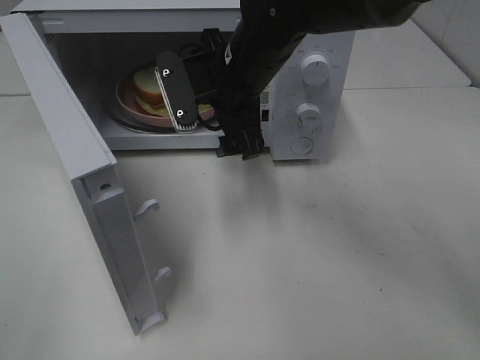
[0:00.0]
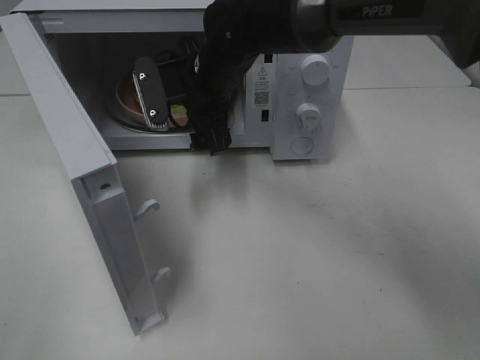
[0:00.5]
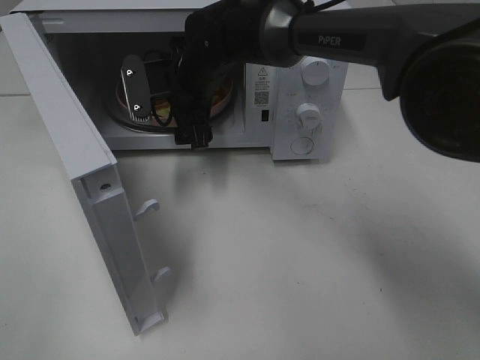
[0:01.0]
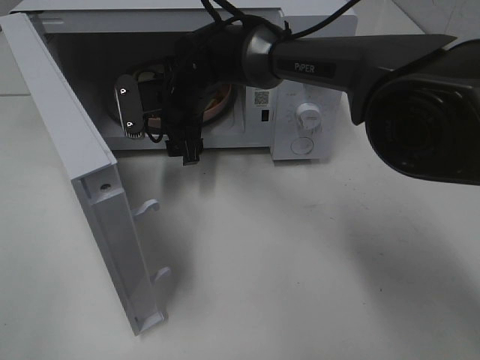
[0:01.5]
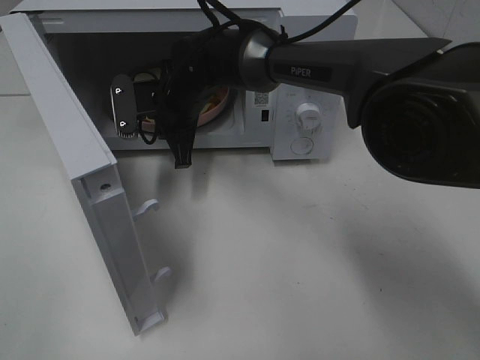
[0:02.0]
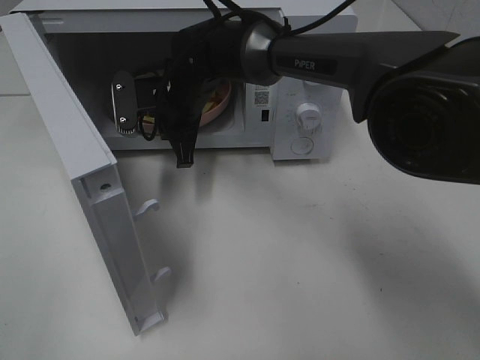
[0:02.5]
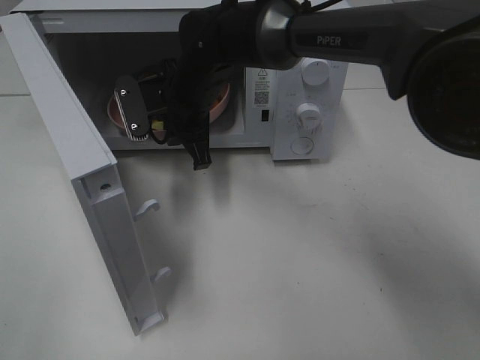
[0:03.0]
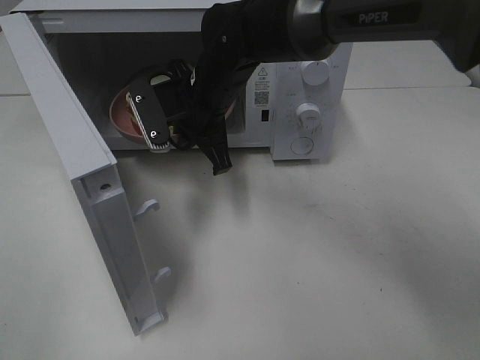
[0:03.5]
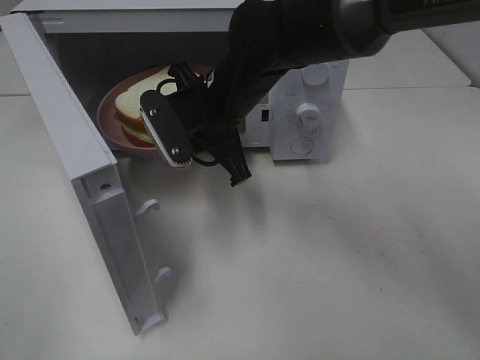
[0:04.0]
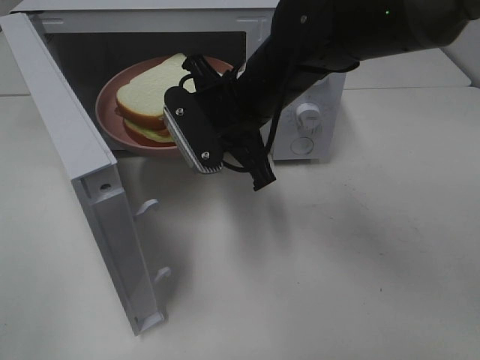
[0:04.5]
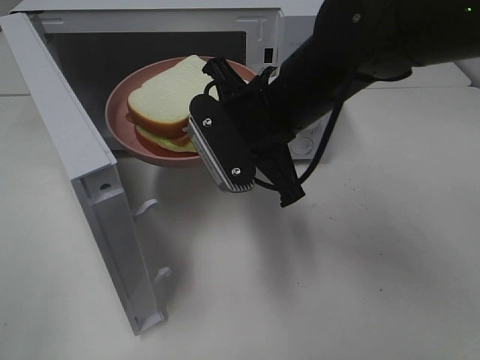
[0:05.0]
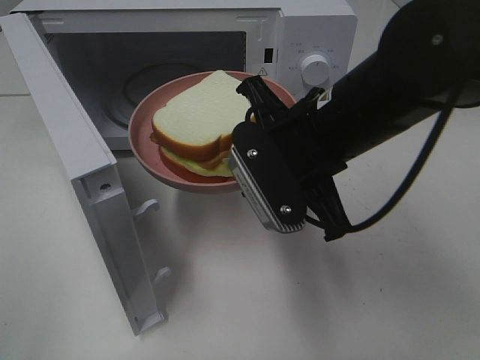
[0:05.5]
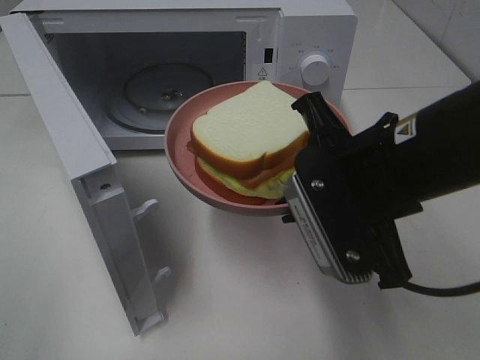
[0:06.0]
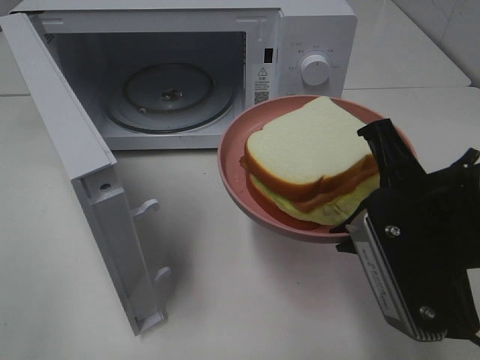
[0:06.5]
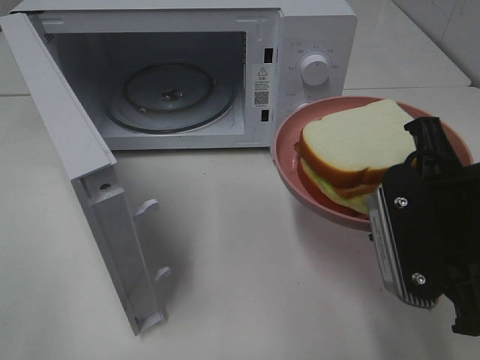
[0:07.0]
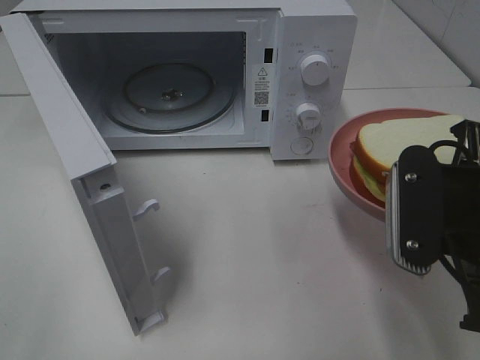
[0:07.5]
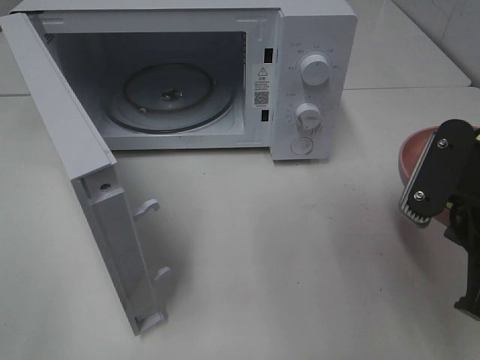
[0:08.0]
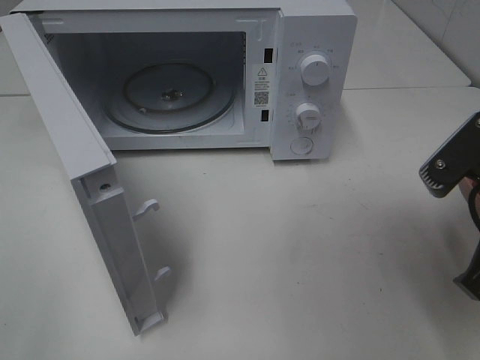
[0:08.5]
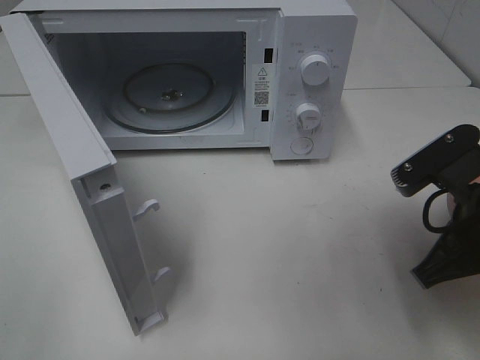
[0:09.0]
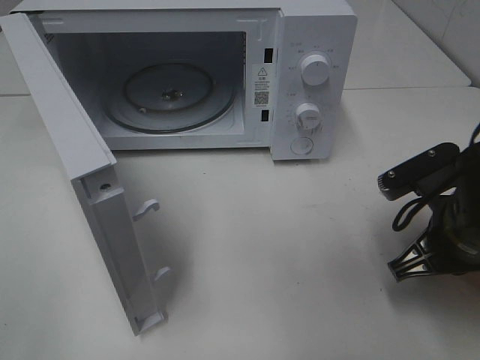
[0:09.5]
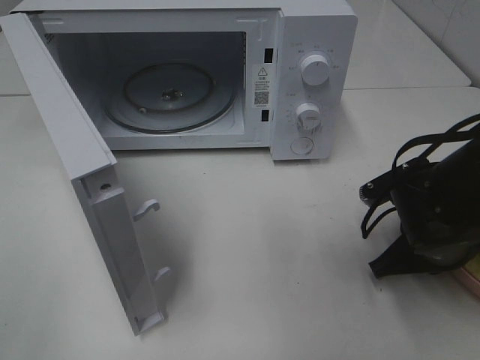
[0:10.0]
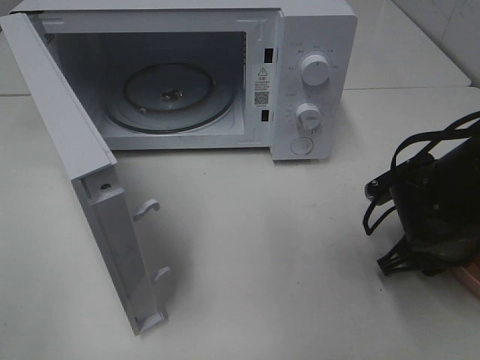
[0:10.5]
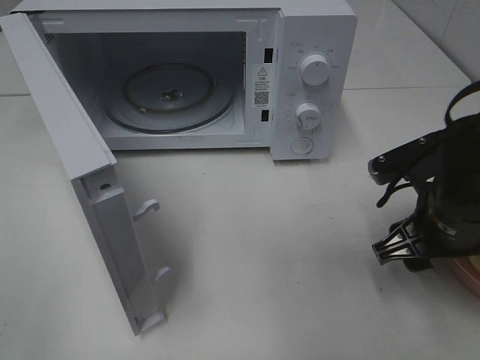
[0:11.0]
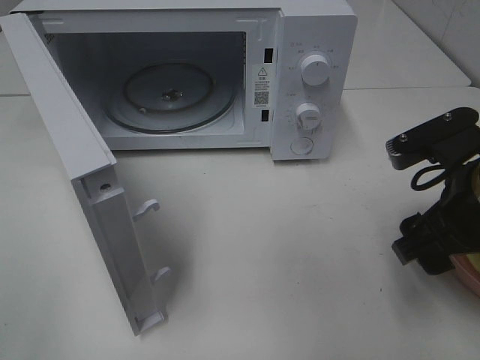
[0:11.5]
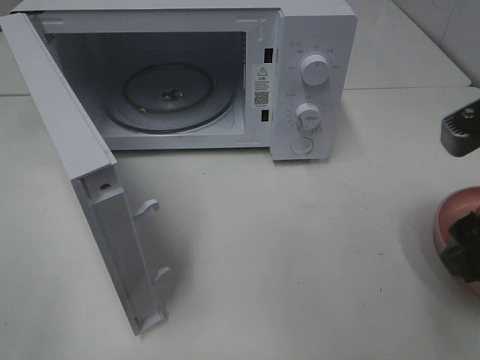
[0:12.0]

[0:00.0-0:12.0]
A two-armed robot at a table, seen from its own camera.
Task of the whole recording: Heat Sandwich.
Step, 0:00.0 to 0:02.0: Right hand: grab the plate with the sandwich.
Step, 0:02.5 to 0:11.0: Right hand: place the plate on the table.
0:00.0 to 0:02.0: The right gripper moves downward, to the left and forward, approximately 15 cm, and closes up.
0:02.0 to 0:04.0: The right gripper is displaced backward and to the right by approximately 10 cm.
0:04.0 to 0:06.0: The right gripper moves backward and to the right, some 20 cm.
0:06.0 to 0:08.0: The right gripper moves to the right, some 10 cm.
0:08.0 to 0:10.0: The right gripper is displaced downward and forward by roughly 15 cm.
0:10.0 to 0:12.0: The right gripper goes about 20 cm upward and backward, and opens its fingers.

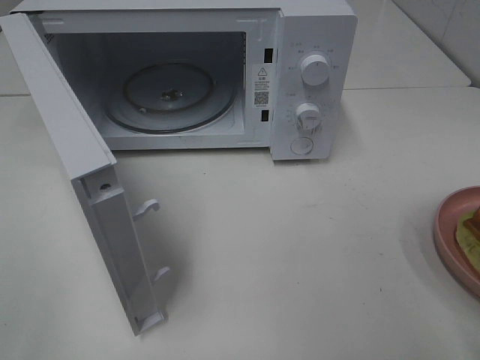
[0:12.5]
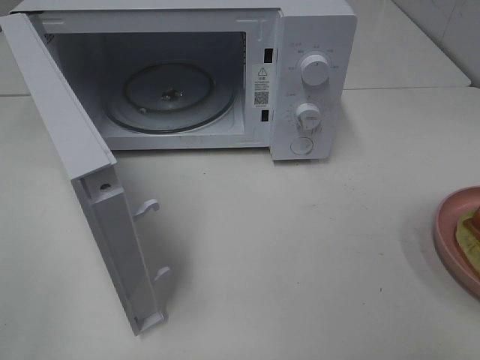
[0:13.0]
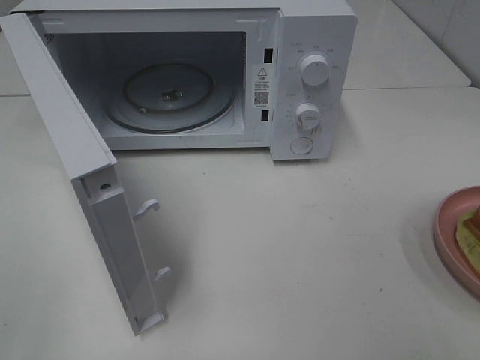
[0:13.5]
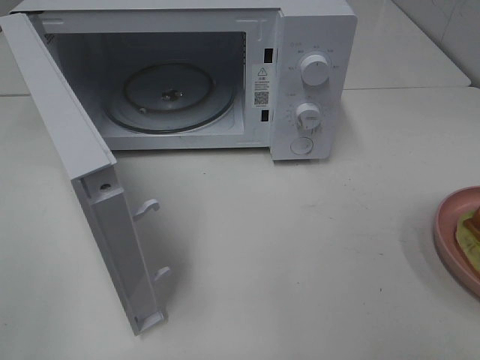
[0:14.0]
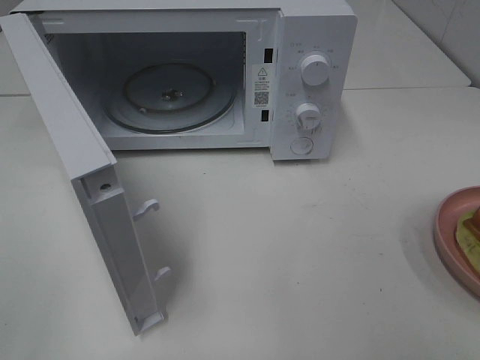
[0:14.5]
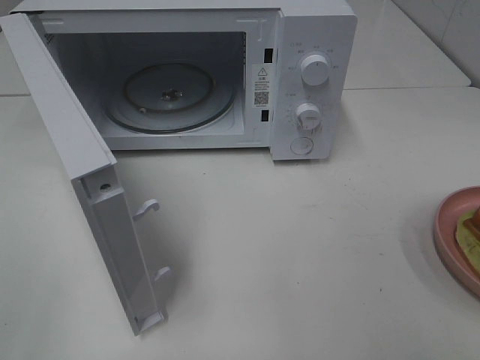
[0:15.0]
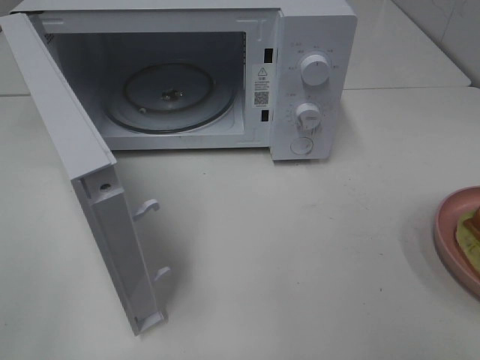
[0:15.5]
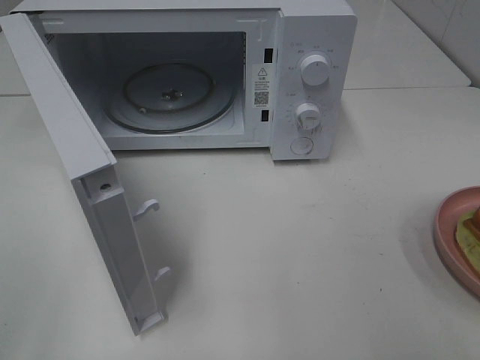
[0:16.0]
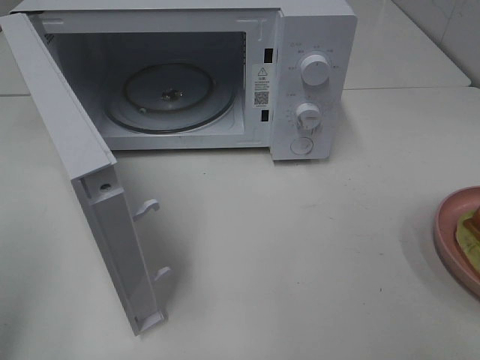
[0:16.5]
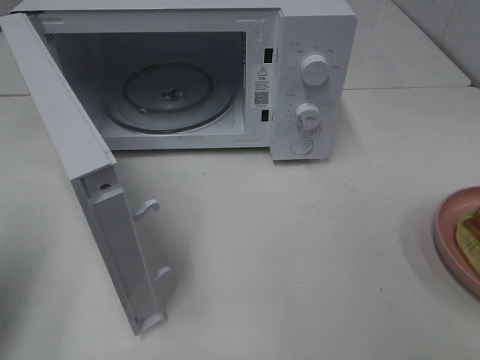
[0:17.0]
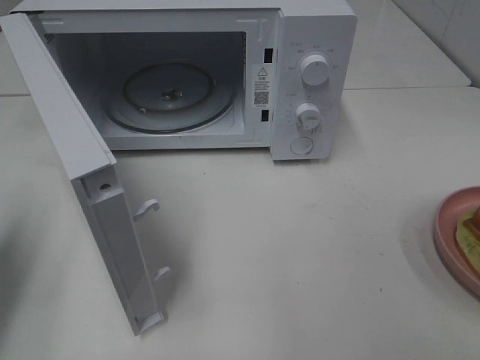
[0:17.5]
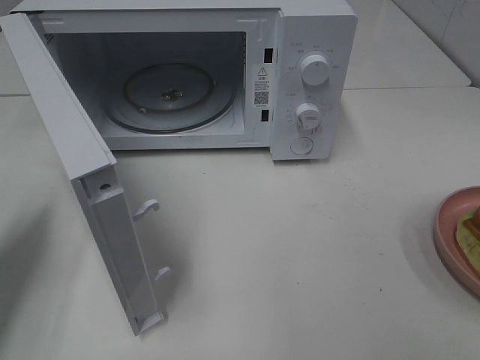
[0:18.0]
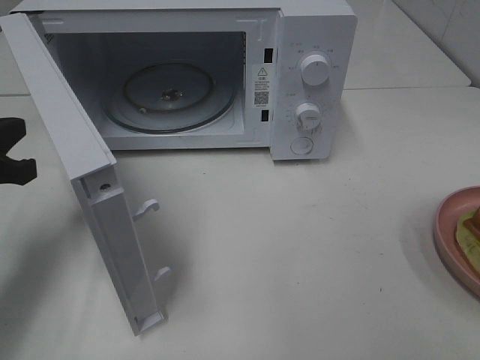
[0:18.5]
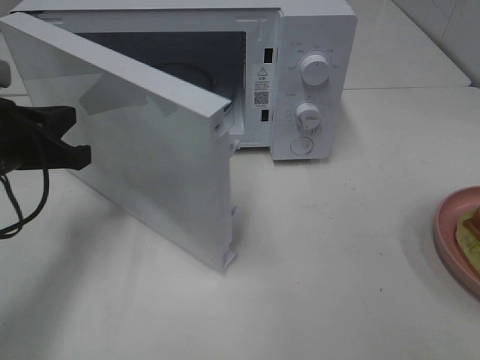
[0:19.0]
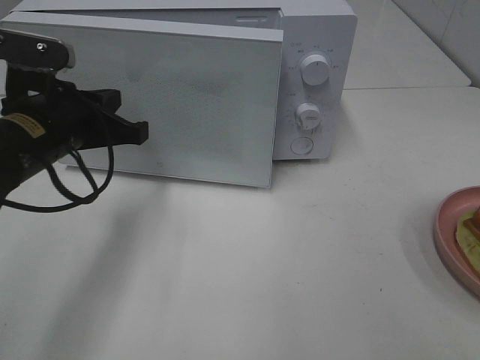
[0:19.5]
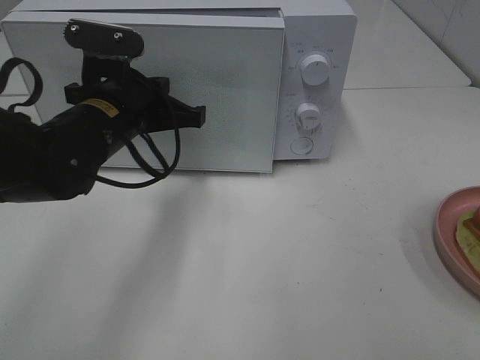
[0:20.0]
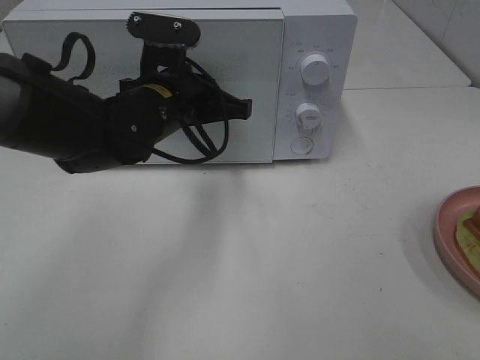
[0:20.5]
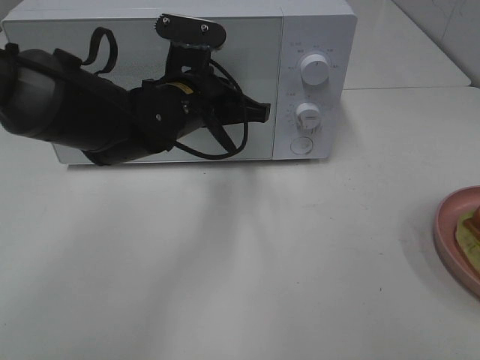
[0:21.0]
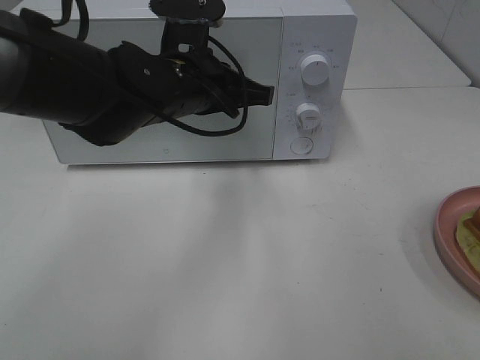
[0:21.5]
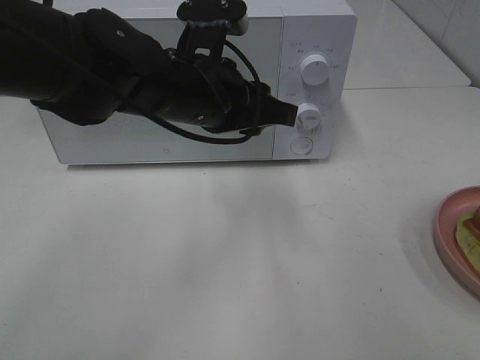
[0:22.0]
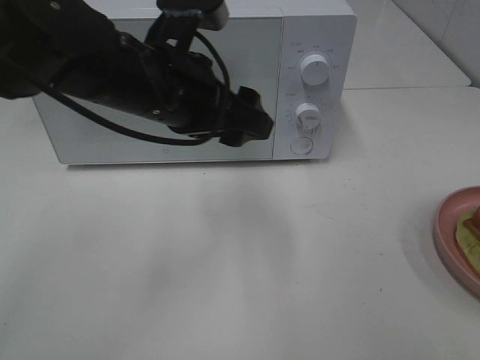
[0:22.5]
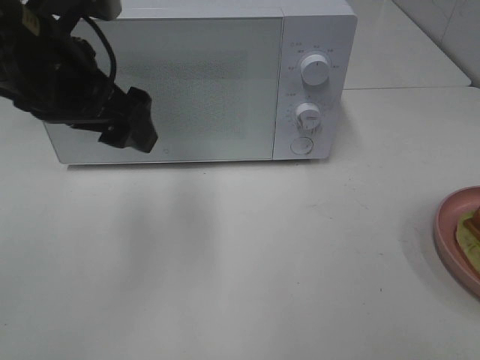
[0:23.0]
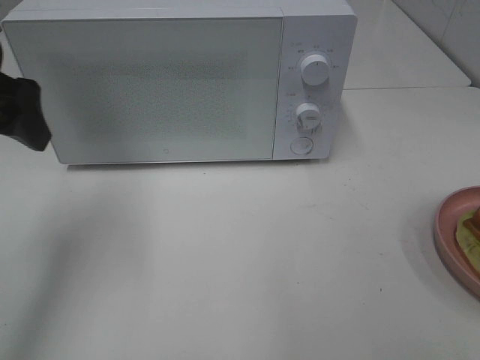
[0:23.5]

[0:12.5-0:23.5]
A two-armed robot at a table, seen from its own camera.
Task of the whole recording: Heat Sandwich.
Step, 0:12.5 to 0:21.0: Left hand: close the microwave door.
0:16.0 to 0:18.0: The left gripper heads forward and downward, covering roughly 25 cm, and closes up.
0:18.0 to 0:20.0: The left gripper moves to the right and forward, approximately 20 cm.
0:20.0 to 0:21.5: The left gripper travels to the right by some 5 cm.
0:21.5 to 0:23.5: The left gripper travels to the left and upward by approximately 20 cm, and opens.

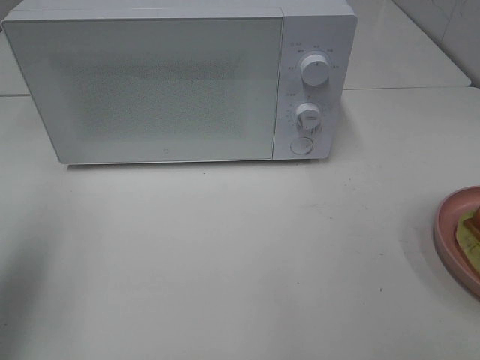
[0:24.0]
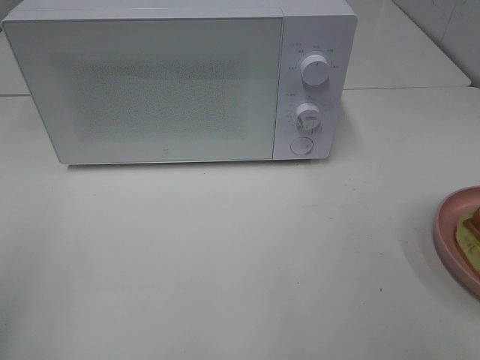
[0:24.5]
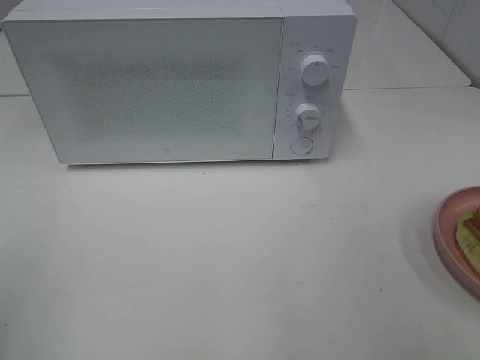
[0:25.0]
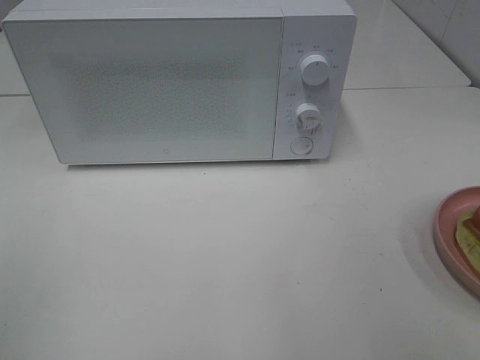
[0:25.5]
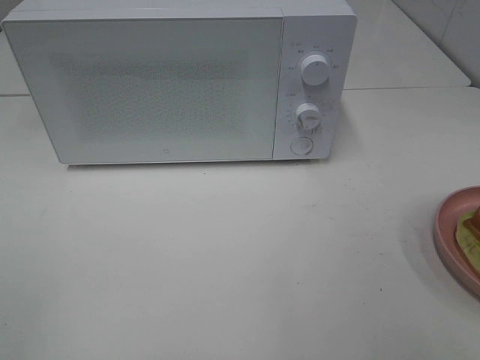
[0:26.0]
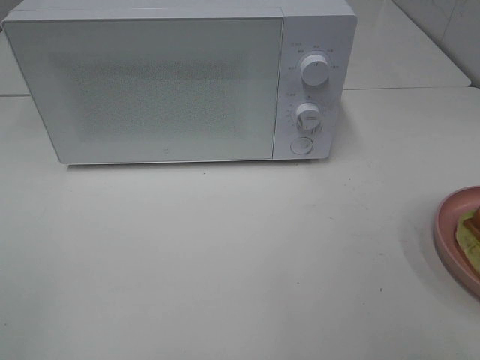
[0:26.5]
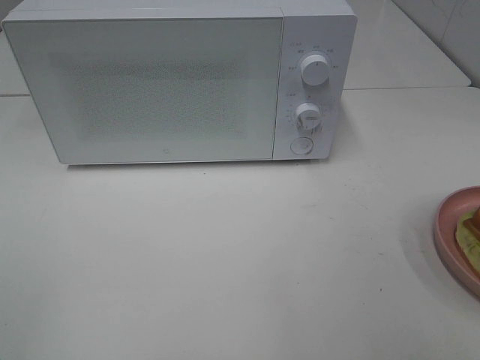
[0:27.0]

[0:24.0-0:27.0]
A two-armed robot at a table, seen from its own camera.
Task of the whole recording: Heat Sandwich.
0:24.0 to 0:25.5: The left gripper heads backward, covering roughly 15 cm.
